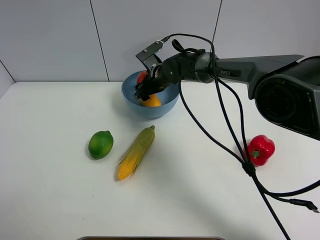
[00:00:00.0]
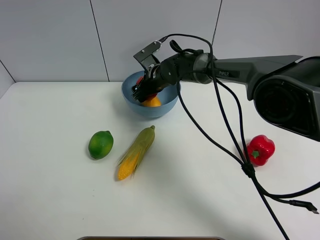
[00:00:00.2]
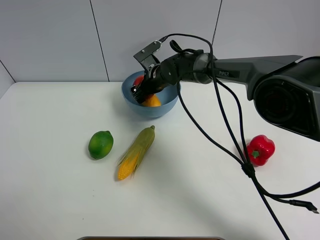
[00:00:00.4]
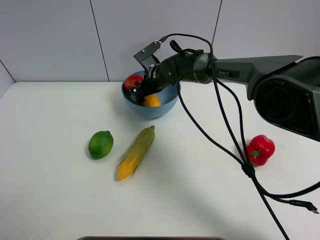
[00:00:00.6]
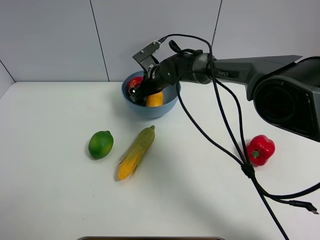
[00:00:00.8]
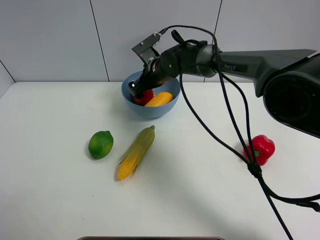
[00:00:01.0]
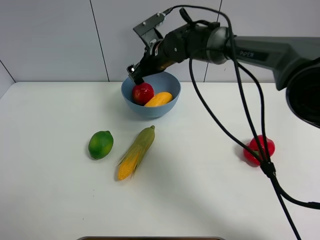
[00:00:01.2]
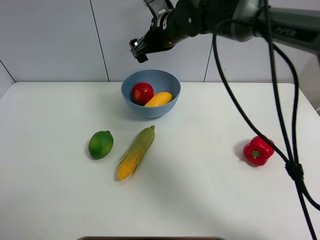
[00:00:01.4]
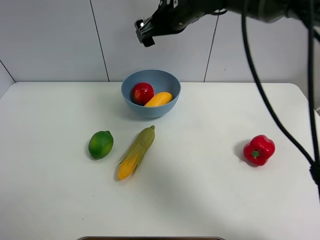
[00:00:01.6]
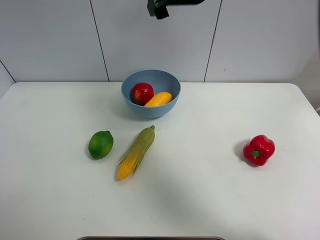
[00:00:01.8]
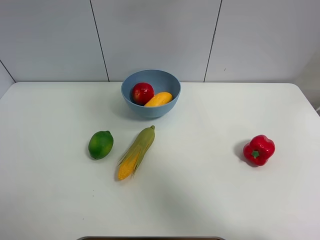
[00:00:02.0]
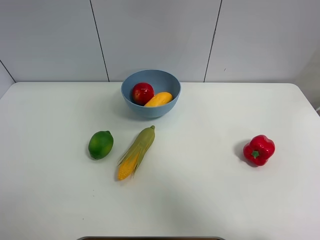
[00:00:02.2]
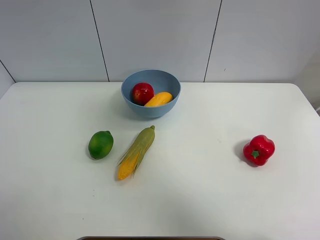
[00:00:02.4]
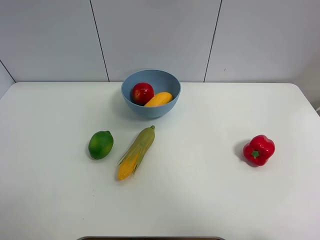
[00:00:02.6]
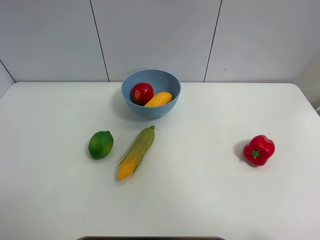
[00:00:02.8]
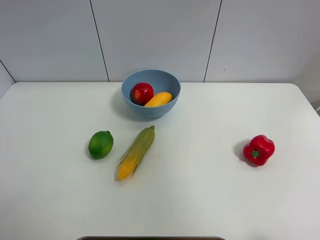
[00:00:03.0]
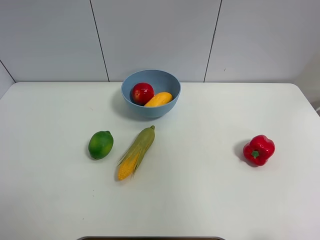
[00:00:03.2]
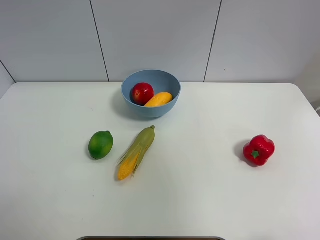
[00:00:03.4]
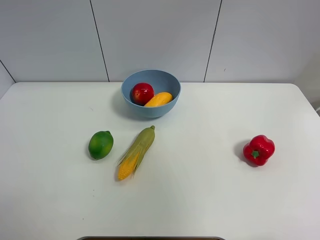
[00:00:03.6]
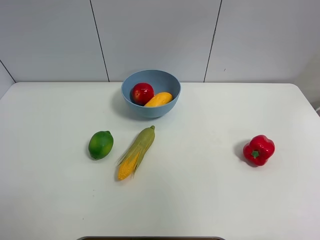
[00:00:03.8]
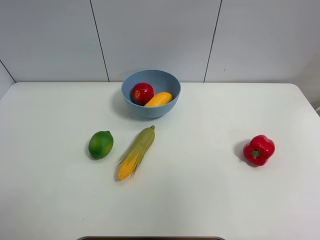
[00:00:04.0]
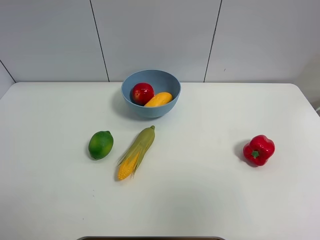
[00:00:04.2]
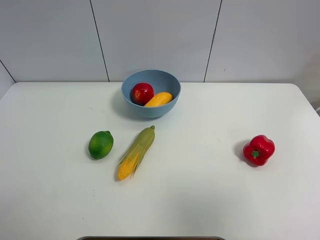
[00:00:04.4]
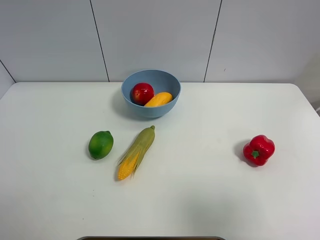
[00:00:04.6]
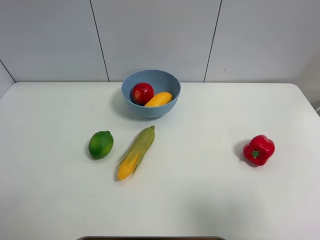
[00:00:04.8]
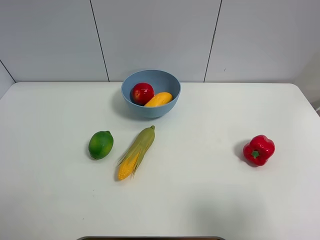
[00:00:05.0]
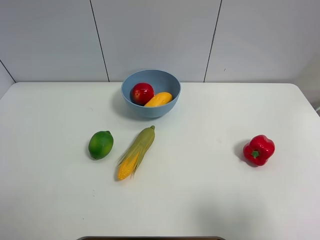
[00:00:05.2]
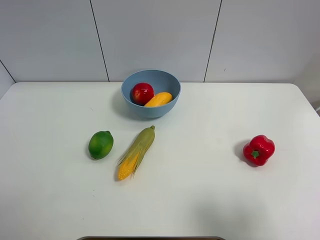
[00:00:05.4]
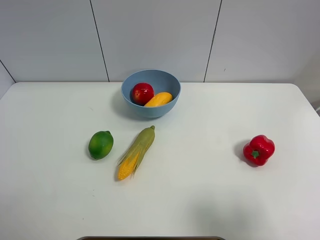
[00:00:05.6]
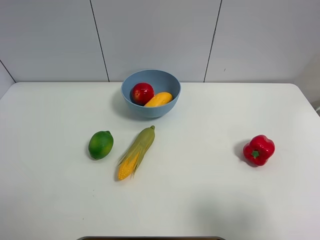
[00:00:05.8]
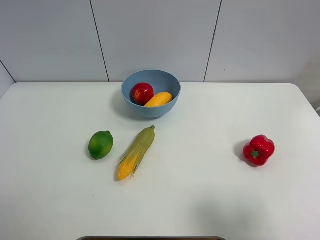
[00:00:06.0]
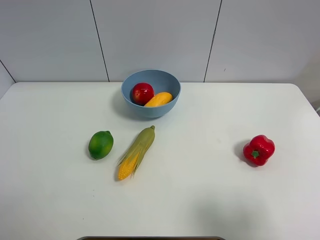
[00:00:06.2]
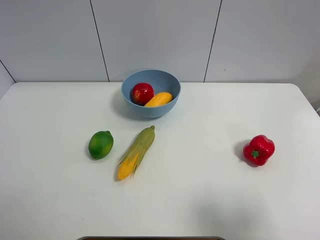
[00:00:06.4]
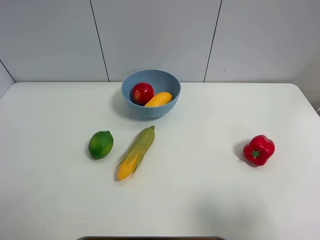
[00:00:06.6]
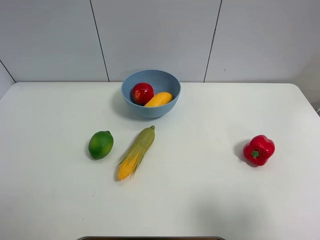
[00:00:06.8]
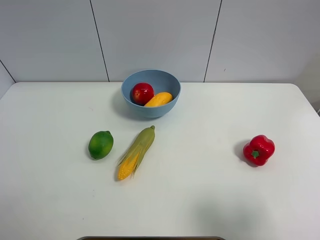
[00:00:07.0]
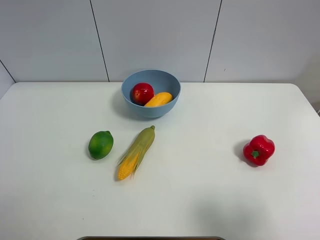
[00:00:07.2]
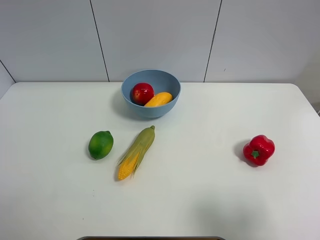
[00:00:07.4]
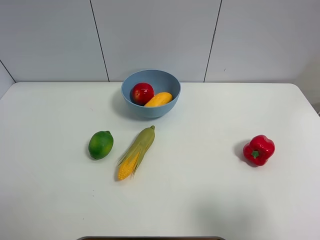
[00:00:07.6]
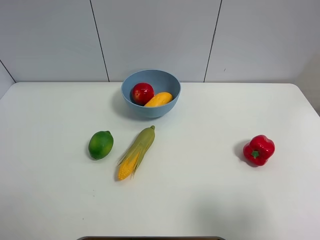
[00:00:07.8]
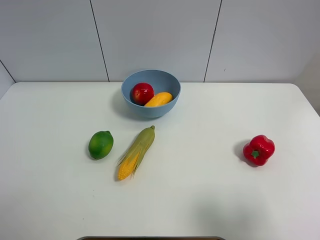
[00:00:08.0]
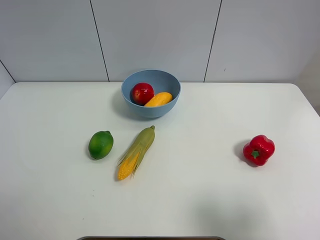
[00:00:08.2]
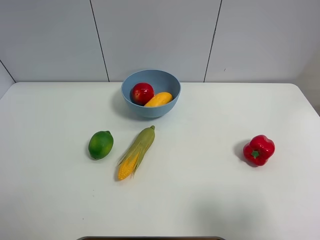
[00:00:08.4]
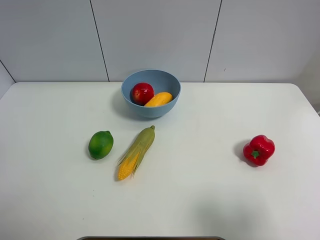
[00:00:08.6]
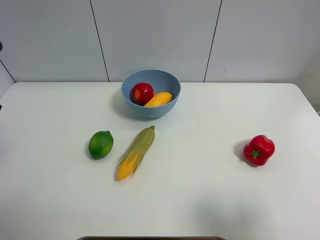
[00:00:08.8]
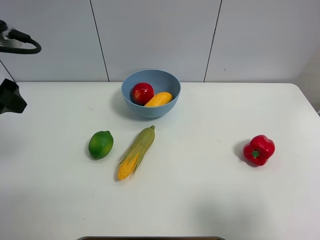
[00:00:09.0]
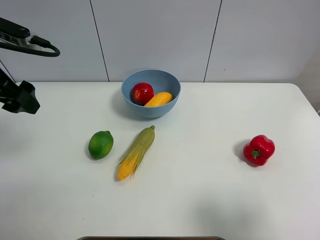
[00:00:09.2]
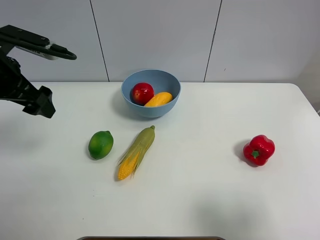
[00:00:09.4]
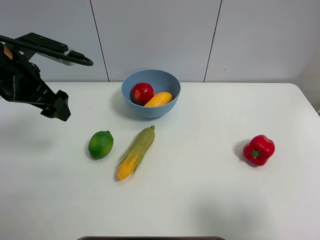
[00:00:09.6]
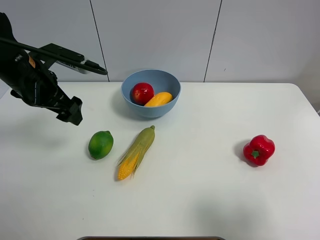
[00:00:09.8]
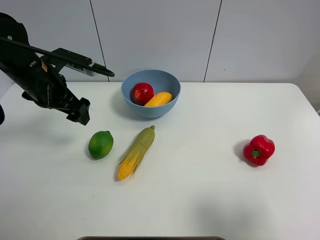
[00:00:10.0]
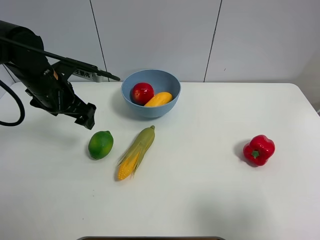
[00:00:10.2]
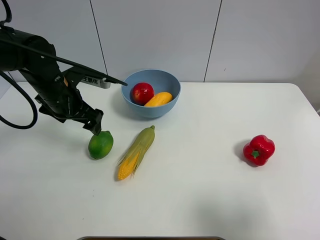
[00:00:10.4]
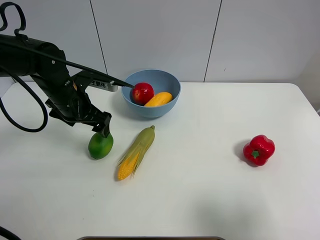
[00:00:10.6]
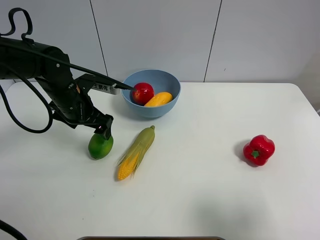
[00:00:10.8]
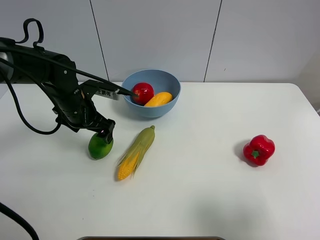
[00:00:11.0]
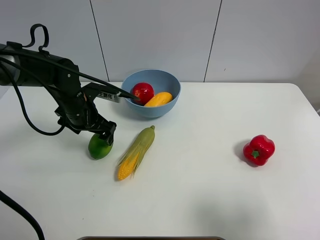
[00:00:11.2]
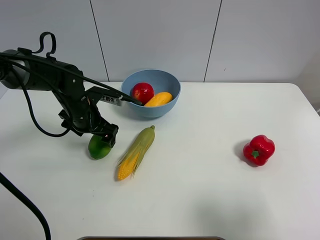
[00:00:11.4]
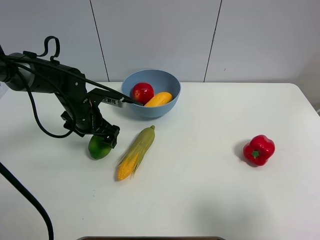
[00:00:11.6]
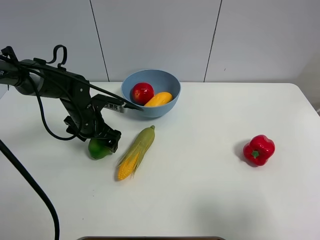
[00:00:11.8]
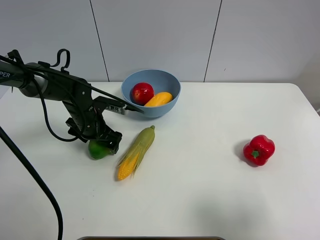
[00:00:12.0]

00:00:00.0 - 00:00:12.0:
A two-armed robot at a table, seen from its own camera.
Task of the whole recording: Put the three fruits on the table into a bowl.
00:00:00.0 - 00:00:01.6: The right gripper is displaced upward by roughly 20 cm, and opens its fingers.
00:00:01.6 - 00:00:03.0: The right gripper shifts approximately 40 cm backward, to the right and upward.
00:00:03.0 - 00:00:04.4: The right gripper is displaced downward and backward by about 20 cm.
00:00:04.4 - 00:00:06.0: The right gripper heads downward, covering roughly 10 cm.
00:00:06.0 - 00:00:07.6: Neither gripper changes place.
00:00:07.6 - 00:00:09.0: The left gripper heads forward, covering approximately 20 cm.
00:00:09.0 - 00:00:10.4: The left gripper shifts roughly 20 cm downward, to the right and forward.
00:00:10.4 - 00:00:12.0: The left gripper travels downward by some 10 cm.

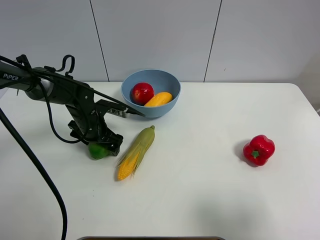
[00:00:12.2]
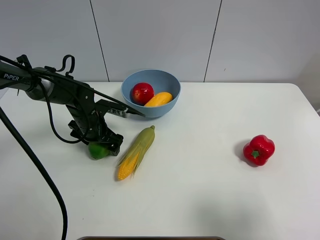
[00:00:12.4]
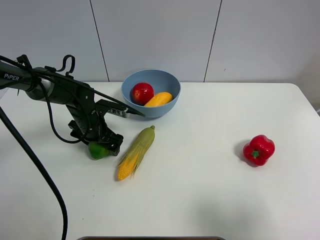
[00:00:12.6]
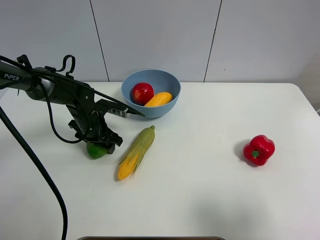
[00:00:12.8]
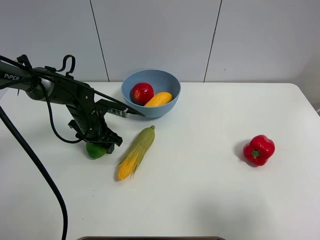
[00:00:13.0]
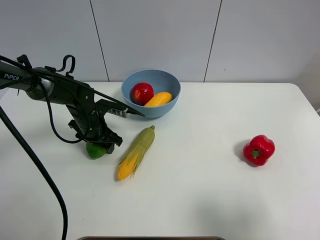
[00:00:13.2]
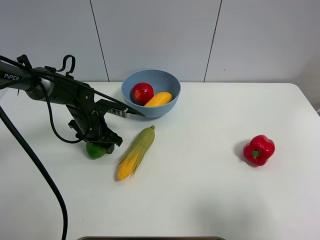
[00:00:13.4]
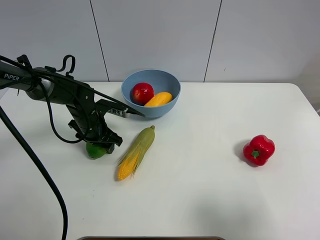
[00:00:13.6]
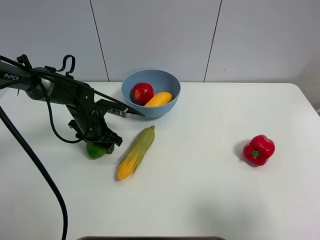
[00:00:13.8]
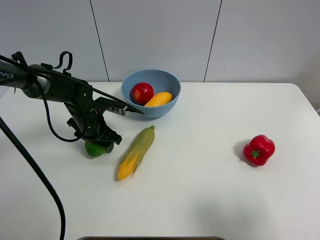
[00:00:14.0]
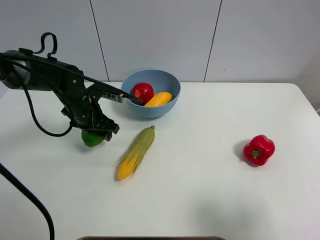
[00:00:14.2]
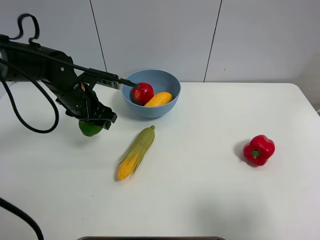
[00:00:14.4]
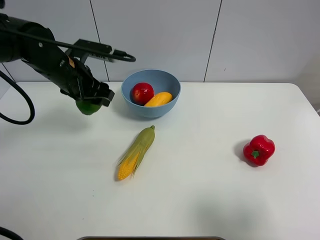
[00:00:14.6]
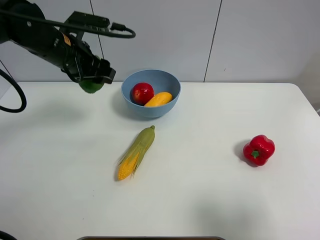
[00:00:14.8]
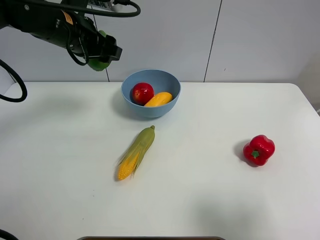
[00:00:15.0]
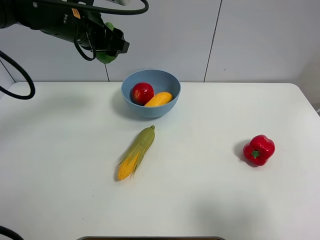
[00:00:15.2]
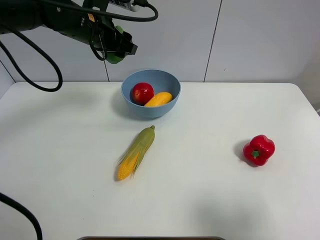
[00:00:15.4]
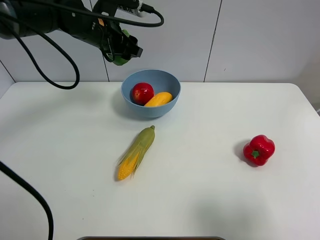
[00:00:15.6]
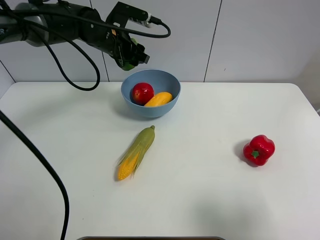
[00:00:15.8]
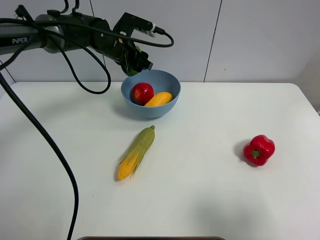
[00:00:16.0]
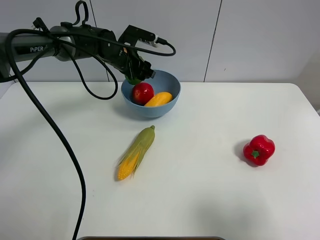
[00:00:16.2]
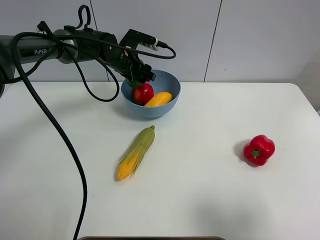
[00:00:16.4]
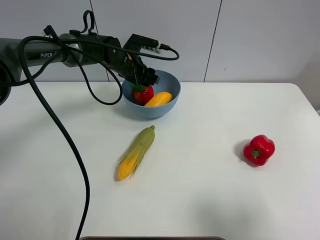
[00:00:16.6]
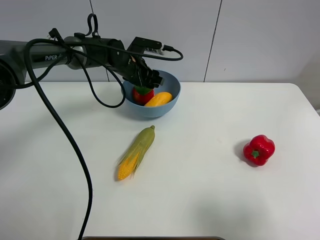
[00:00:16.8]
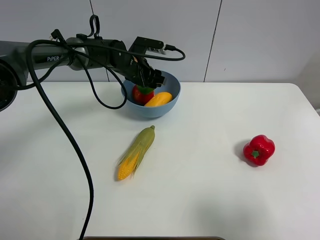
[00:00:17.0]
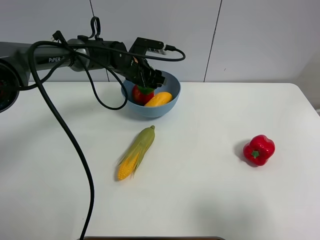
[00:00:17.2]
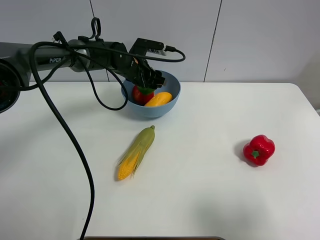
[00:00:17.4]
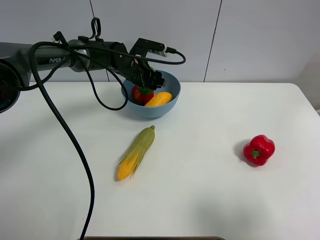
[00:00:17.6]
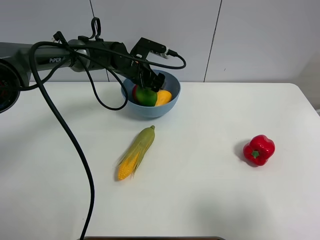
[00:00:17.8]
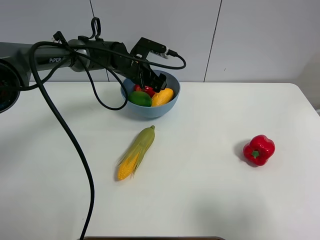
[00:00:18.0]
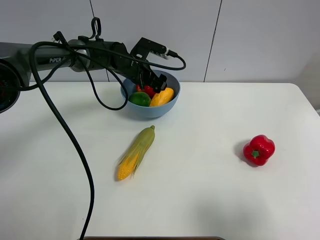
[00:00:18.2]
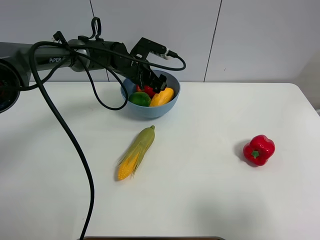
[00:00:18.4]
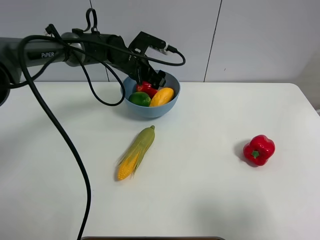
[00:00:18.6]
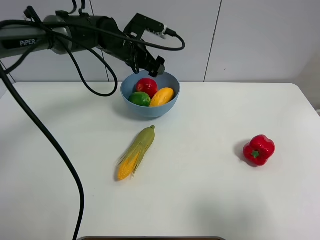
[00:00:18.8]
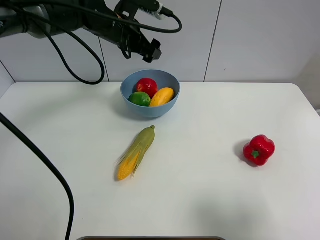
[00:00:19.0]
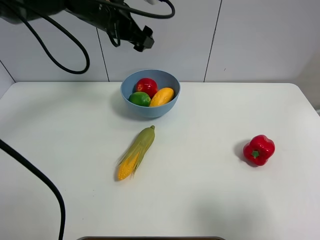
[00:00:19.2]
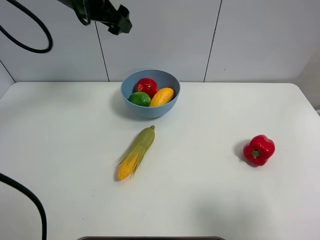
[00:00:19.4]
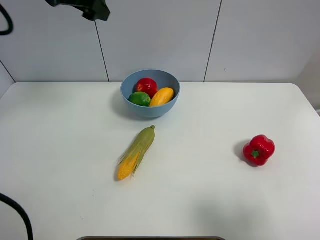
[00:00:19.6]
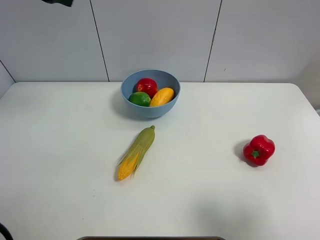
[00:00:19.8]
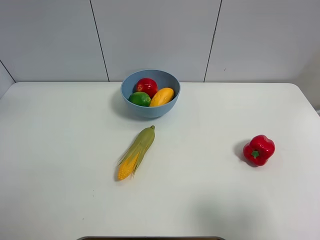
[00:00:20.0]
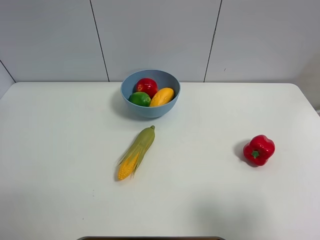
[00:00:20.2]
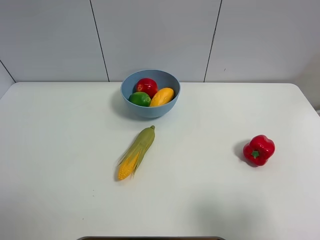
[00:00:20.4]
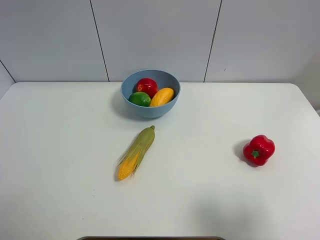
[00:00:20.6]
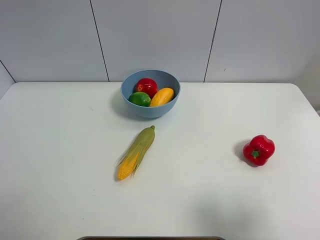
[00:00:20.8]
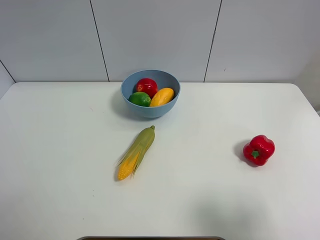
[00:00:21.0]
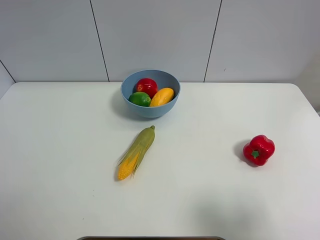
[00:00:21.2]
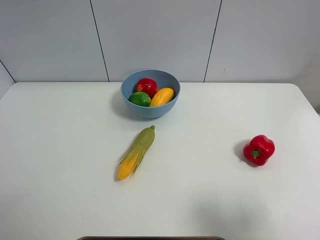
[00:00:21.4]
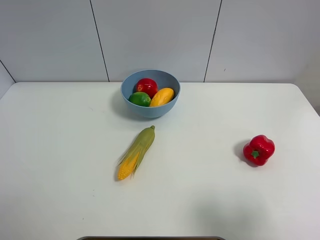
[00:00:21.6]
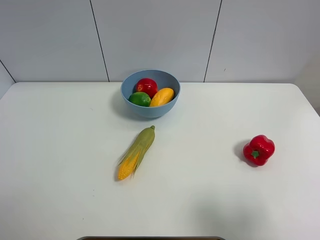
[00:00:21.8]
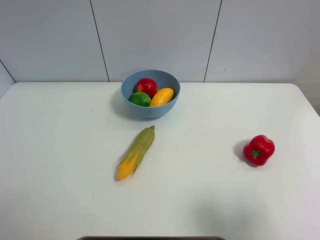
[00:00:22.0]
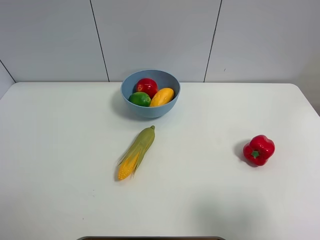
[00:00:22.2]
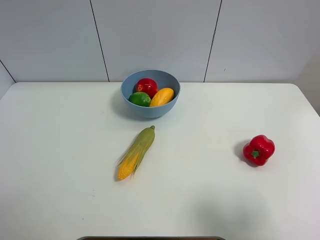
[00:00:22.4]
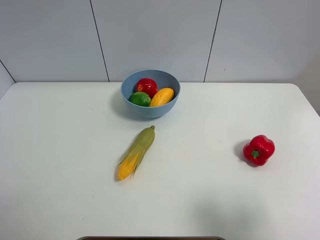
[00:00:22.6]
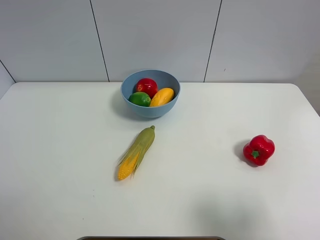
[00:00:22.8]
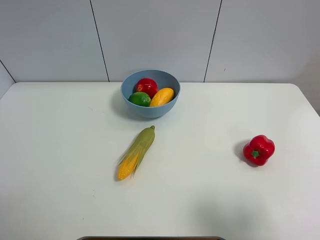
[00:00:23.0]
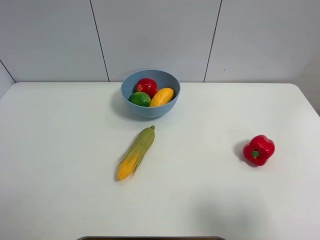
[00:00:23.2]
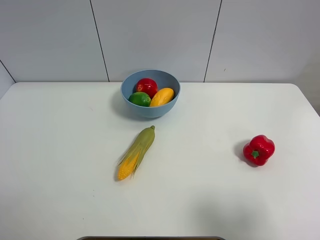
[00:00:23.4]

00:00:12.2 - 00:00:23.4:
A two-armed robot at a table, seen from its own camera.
Task of the whole recording: Put the three fruits on the table into a bowl.
Step, 00:00:13.0 - 00:00:18.2: Place the green lemon in the blue bowl with left gripper.
00:00:12.2 - 00:00:13.8: The left gripper closes its fingers.
00:00:13.8 - 00:00:15.4: The left gripper goes roughly 20 cm upward.
00:00:15.4 - 00:00:17.0: The left gripper heads downward, to the right and forward, covering approximately 15 cm.
00:00:17.0 - 00:00:18.6: The left gripper opens up.
00:00:18.6 - 00:00:20.2: The left gripper moves upward, to the left and backward, roughly 40 cm.
